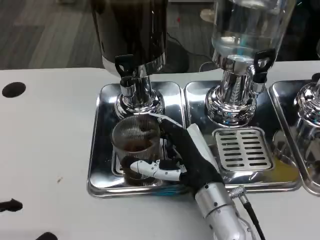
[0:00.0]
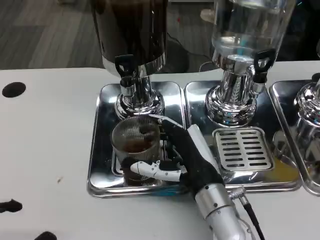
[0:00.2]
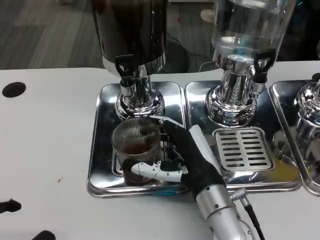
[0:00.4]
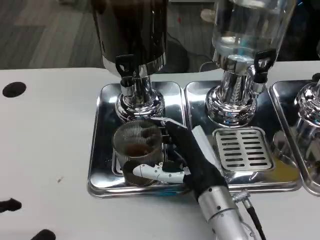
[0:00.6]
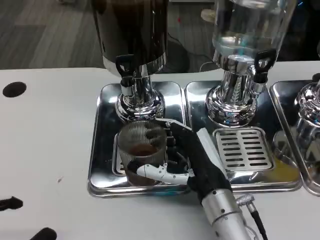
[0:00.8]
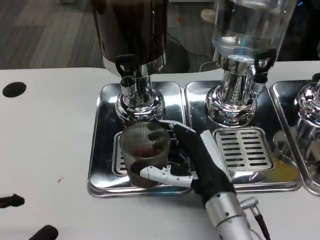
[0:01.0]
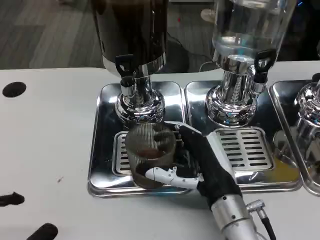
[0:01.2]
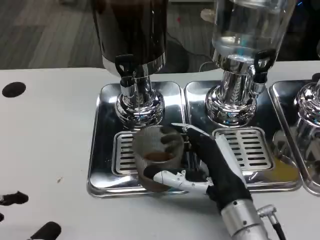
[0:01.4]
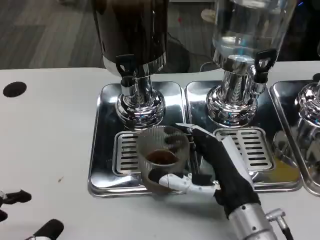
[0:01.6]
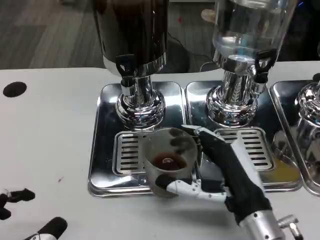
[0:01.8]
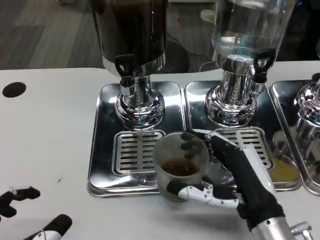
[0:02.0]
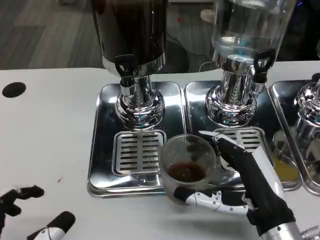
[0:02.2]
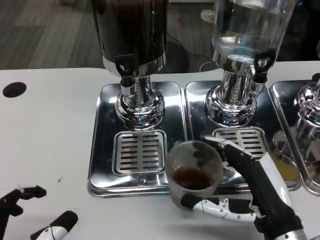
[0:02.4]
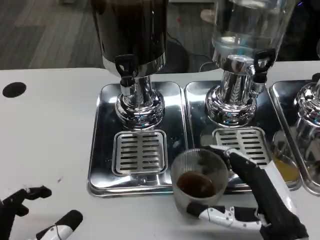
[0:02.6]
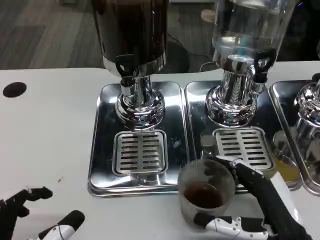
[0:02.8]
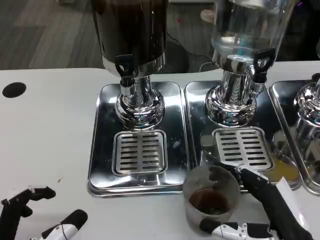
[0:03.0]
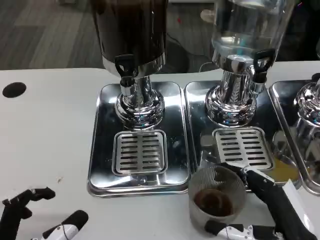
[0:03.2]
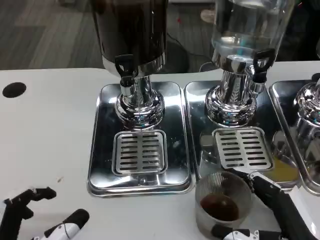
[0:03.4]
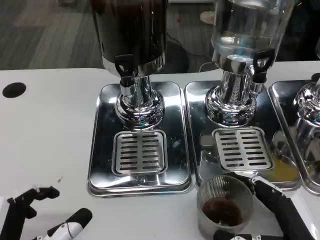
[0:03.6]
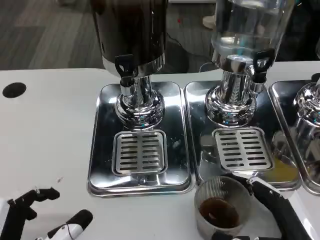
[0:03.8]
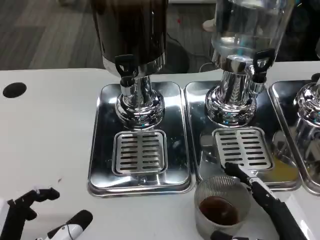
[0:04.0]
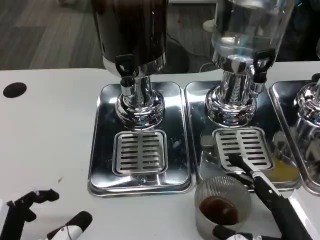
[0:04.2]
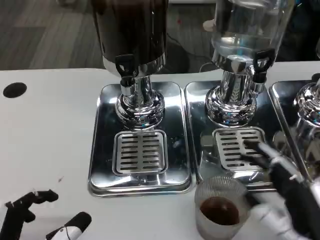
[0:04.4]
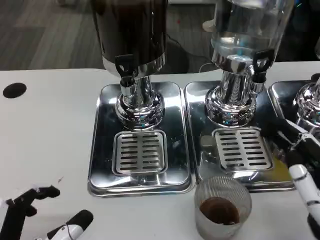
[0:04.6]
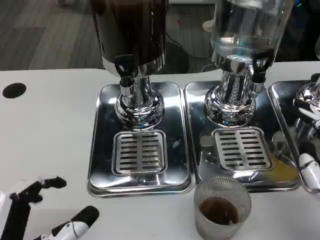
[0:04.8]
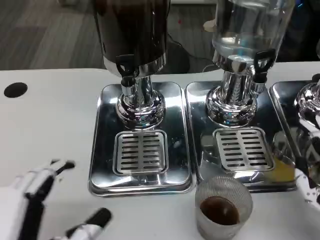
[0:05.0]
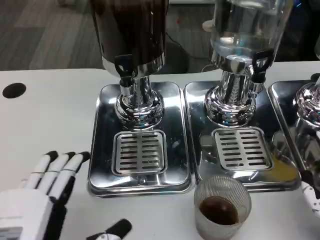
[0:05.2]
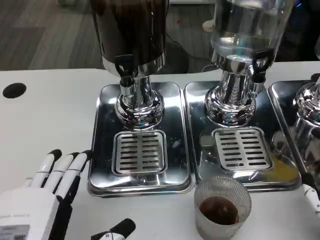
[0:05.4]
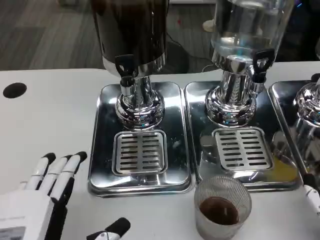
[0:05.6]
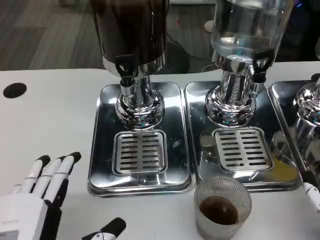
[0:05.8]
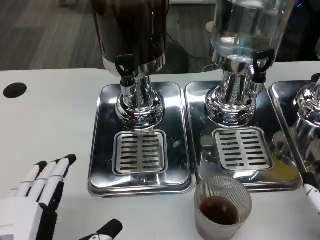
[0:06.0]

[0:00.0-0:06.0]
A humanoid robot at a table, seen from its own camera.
Task of the whole recording: Grasp the cup under the faucet to collect the drink, then remove the cup.
0:00.0 to 0:01.6: The right hand moves about 5 cm.
0:01.6 to 0:03.0: The right hand shifts some 10 cm to the right and backward.
0:03.0 to 0:04.4: The hands stay close to where they were, moving slightly.
0:04.4 to 0:06.0: The right hand shifts approximately 5 cm to the right.

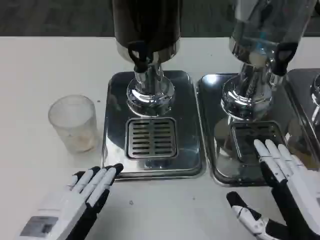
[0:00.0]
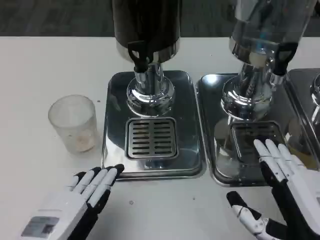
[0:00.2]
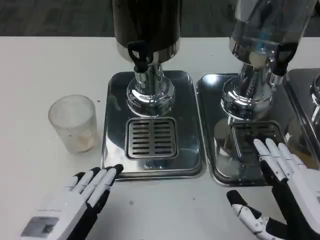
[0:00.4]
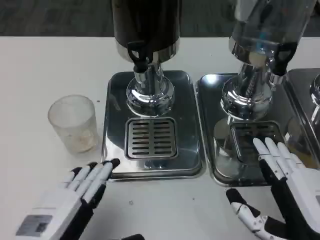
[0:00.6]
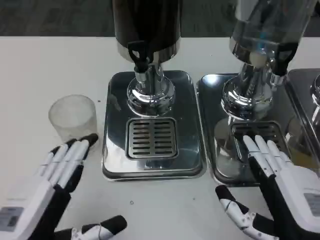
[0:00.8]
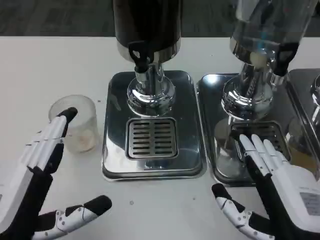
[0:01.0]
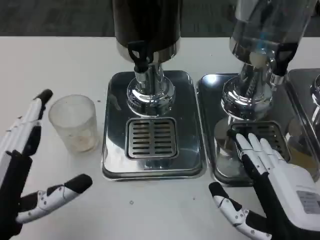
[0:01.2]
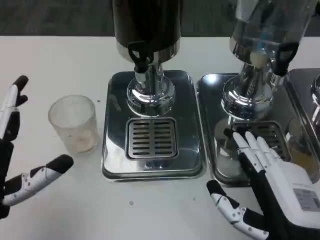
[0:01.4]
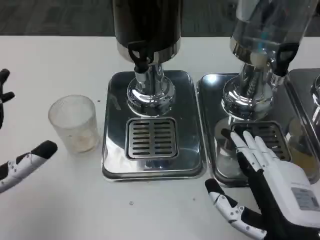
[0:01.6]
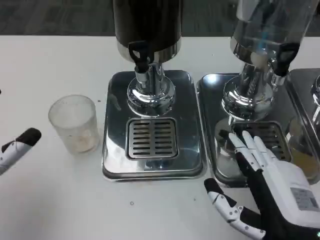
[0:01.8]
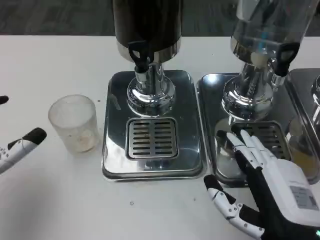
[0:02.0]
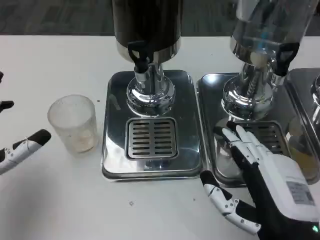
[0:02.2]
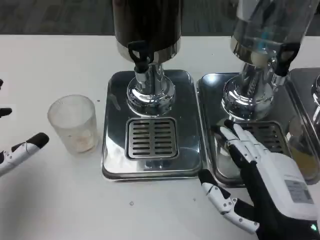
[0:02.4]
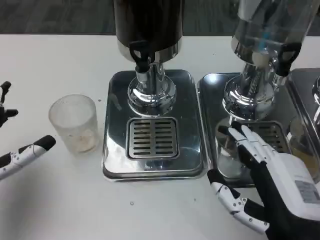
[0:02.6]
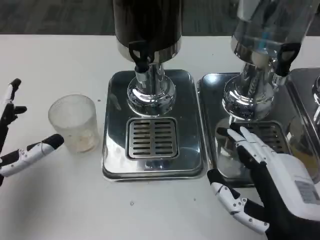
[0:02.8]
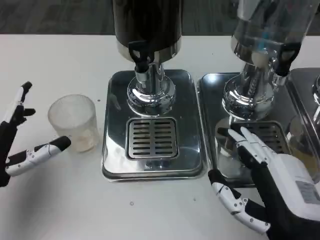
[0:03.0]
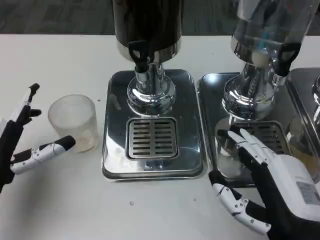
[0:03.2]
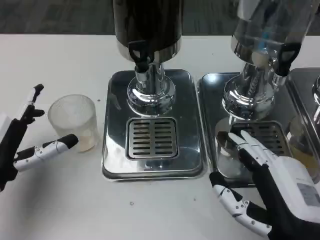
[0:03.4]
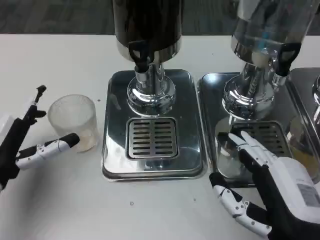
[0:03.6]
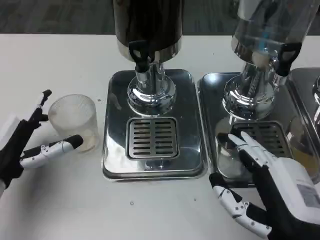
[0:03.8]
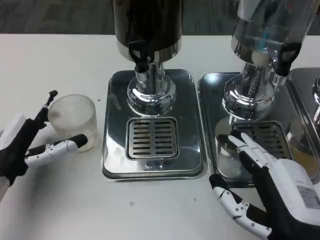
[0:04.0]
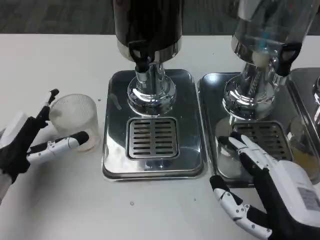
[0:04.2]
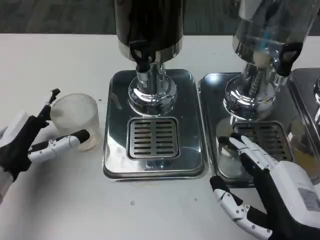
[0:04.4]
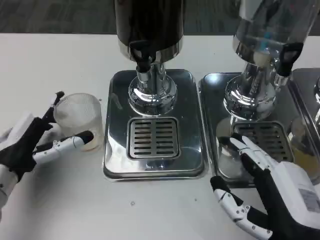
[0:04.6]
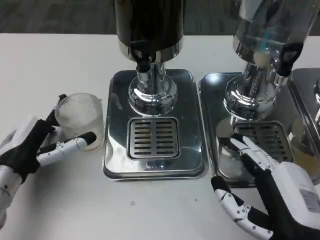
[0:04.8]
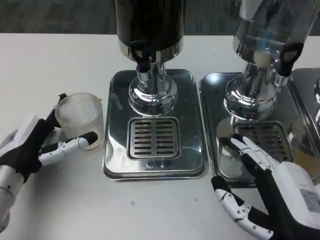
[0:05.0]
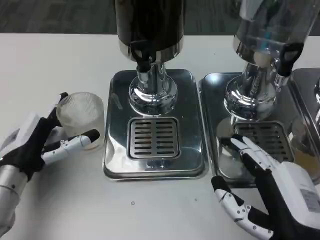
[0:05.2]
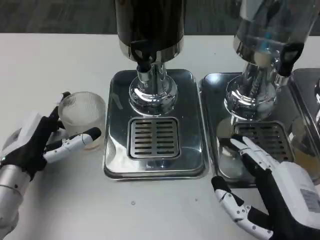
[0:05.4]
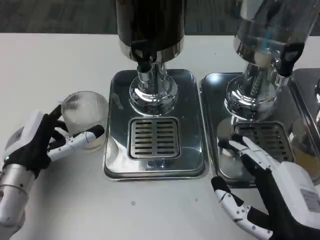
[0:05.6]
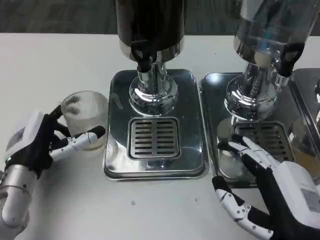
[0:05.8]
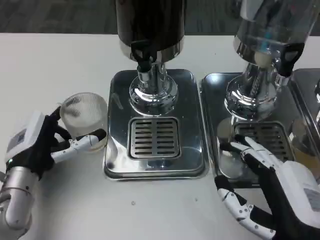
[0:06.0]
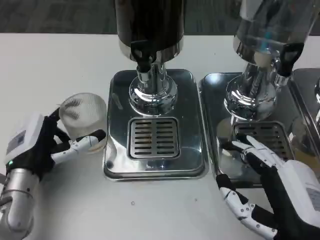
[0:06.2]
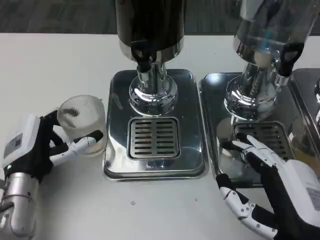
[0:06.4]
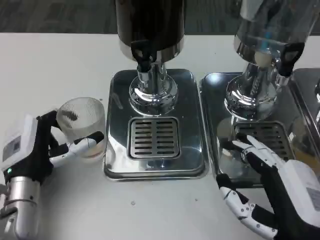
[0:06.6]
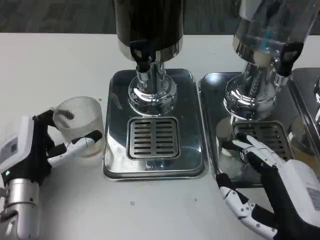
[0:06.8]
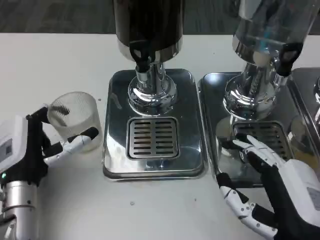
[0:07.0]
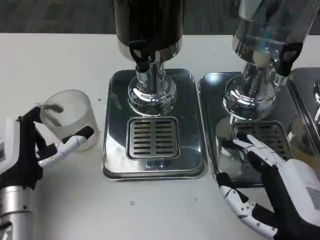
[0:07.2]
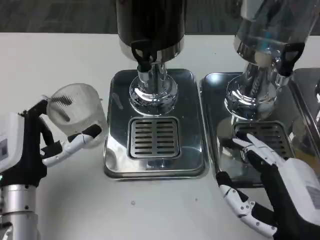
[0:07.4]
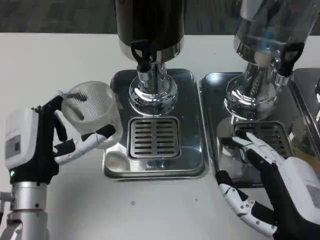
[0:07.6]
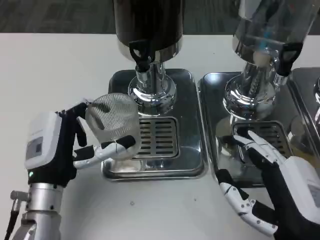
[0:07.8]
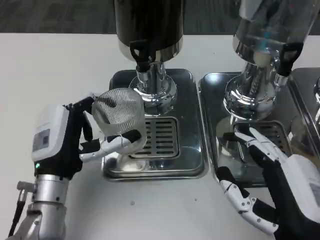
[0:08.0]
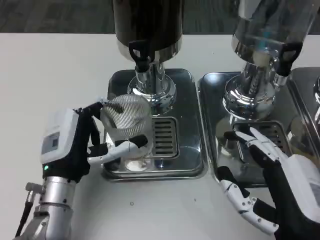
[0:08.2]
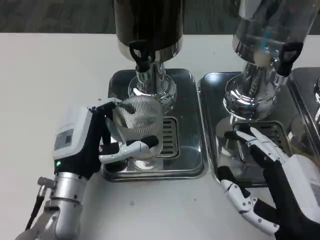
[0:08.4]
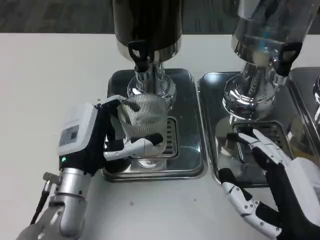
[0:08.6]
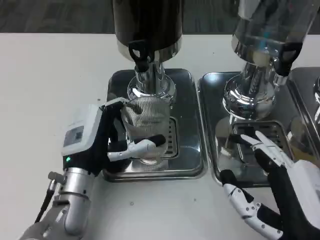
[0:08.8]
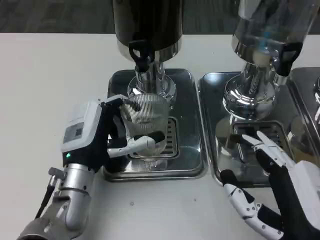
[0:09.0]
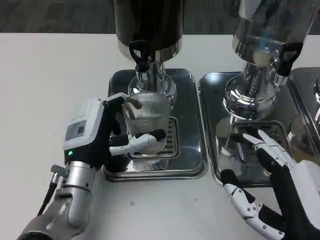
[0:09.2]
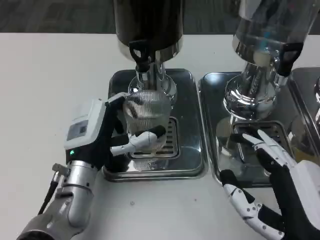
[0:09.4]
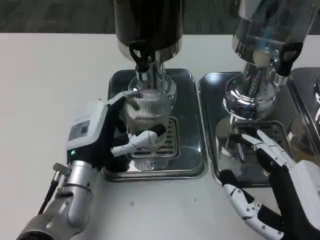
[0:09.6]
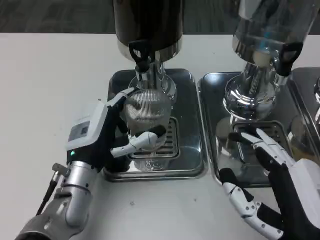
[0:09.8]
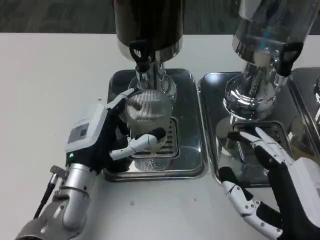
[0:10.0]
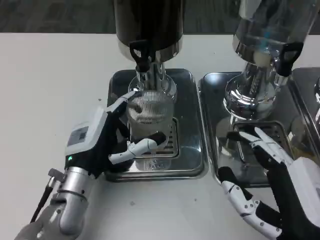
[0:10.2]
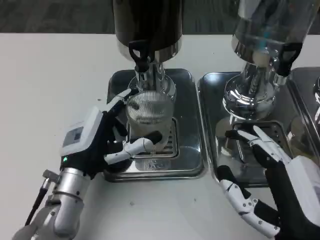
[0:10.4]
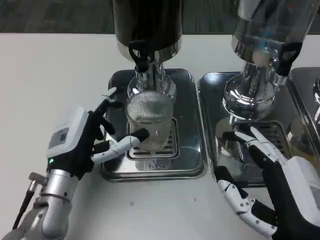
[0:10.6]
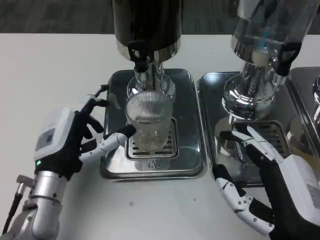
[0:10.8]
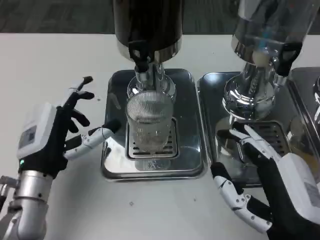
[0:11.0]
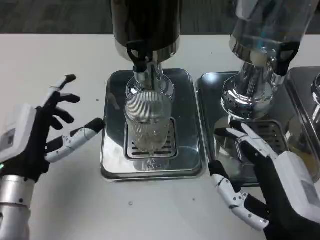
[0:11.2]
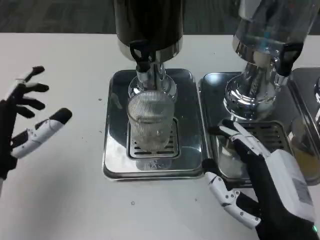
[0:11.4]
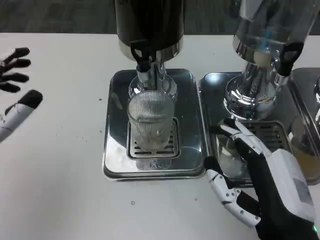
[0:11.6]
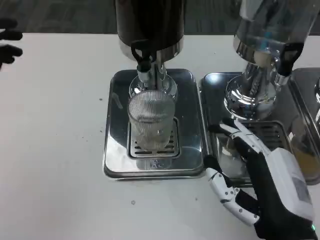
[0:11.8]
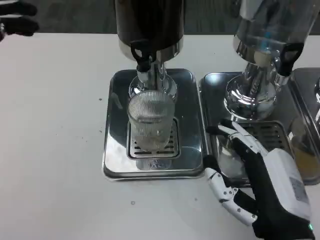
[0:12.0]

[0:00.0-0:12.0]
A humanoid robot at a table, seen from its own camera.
Task of the whole recording: Grasp the cup under the faucet to collect the drink, then remove the cup.
0:00.0 to 0:01.6: The left hand heads forward and to the left, covering about 10 cm.
0:01.6 to 0:03.0: The left hand changes place by some 5 cm.
0:03.0 to 0:04.4: The hands stay close to where they were, moving slightly.
0:04.4 to 0:06.0: The hands stay close to where they were, moving slightly.
0:07.6 to 0:09.0: The left hand moves to the right, approximately 5 cm.
0:09.0 to 0:10.4: The hands make only small movements.
0:10.4 to 0:12.0: The left hand shifts about 20 cm upward and to the left.

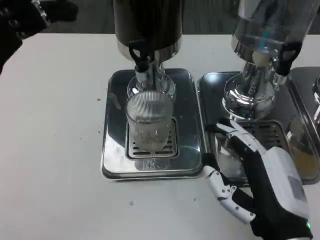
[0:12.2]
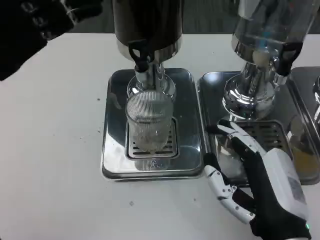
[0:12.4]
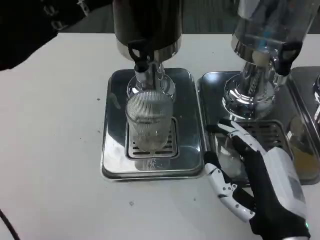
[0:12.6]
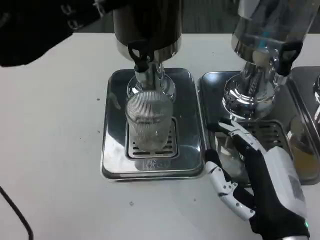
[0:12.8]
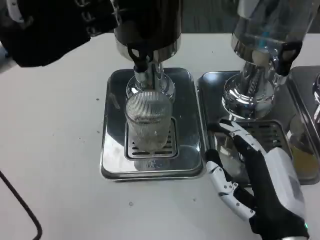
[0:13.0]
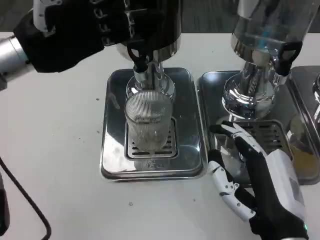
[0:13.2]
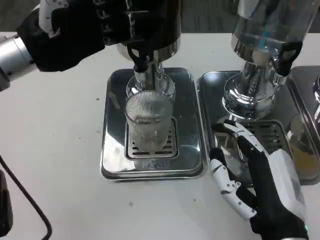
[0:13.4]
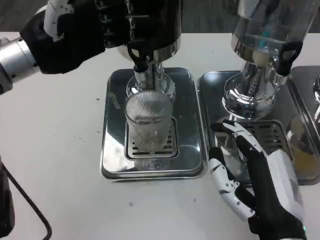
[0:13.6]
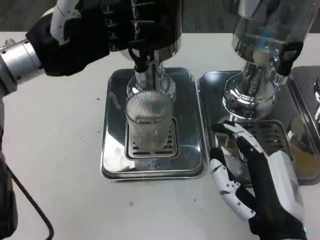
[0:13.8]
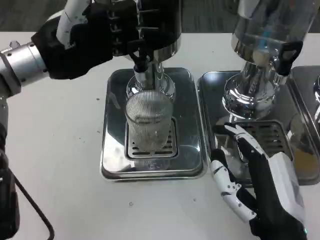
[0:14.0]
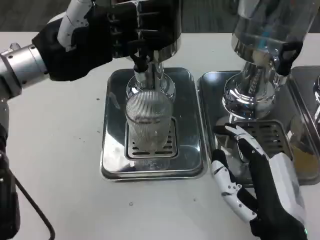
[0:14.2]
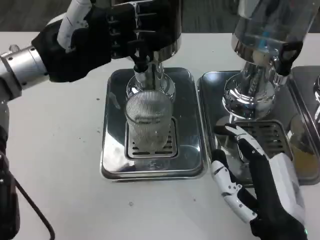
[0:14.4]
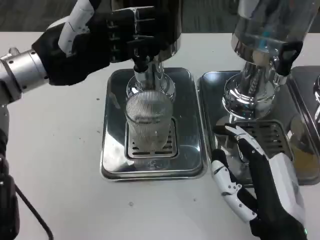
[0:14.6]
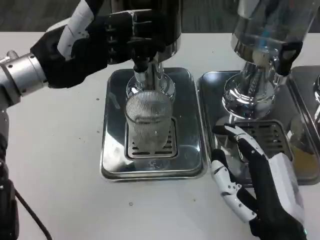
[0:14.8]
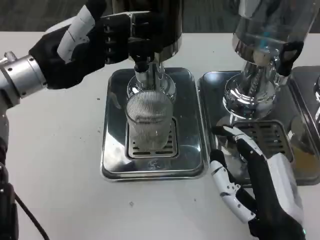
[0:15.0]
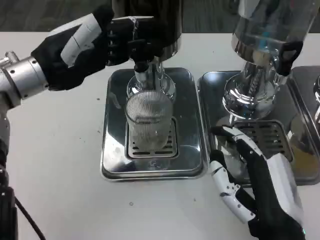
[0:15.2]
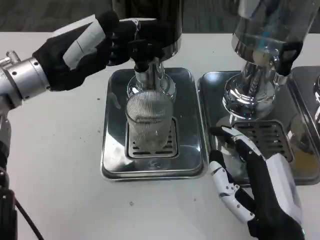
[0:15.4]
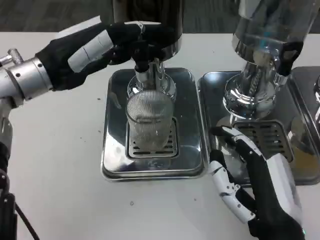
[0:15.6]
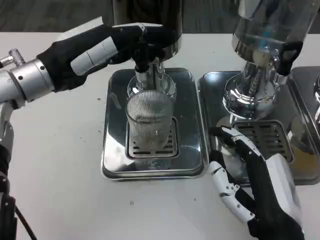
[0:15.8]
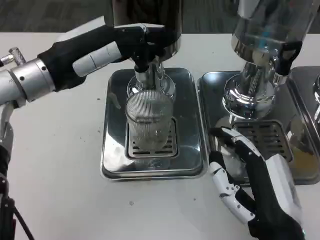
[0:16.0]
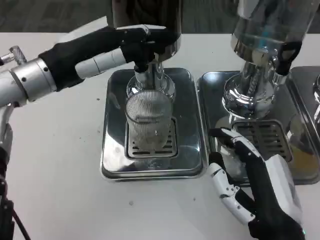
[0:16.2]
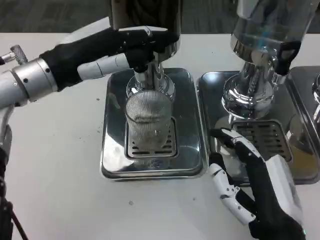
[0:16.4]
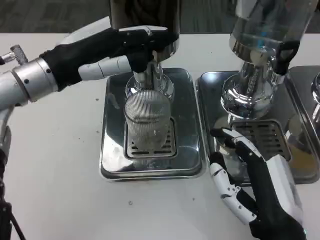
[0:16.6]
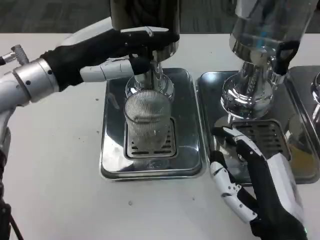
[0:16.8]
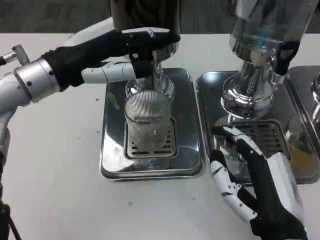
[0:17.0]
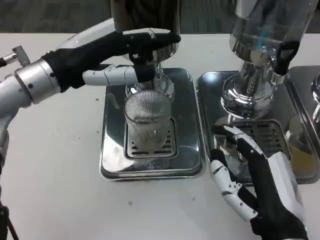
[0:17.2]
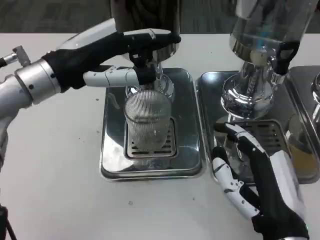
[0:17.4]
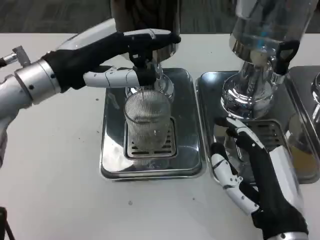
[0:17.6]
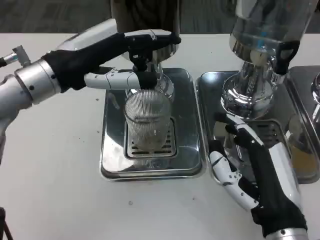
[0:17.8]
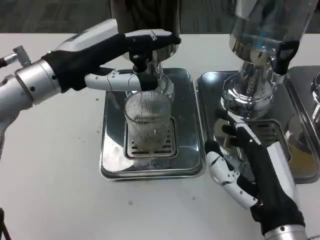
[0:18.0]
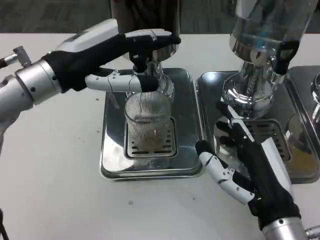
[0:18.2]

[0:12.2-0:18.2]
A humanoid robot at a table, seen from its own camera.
Task of the whole recording: Grasp the cup under the faucet to collect the drink, then remove the cup.
0:12.2 to 0:13.8: The left hand shifts some 10 cm forward and to the right.
0:13.8 to 0:15.2: There are only small adjustments of the hands.
0:16.6 to 0:18.2: There are only small adjustments of the hands.
